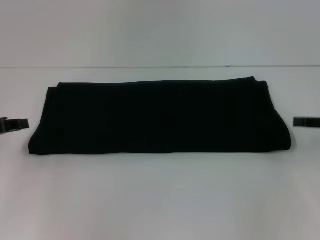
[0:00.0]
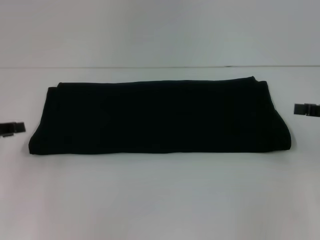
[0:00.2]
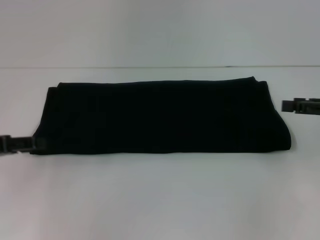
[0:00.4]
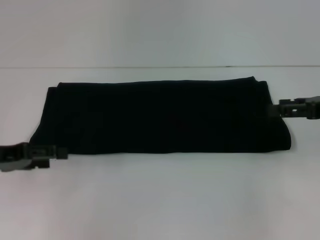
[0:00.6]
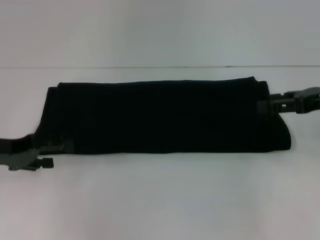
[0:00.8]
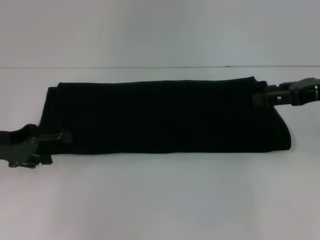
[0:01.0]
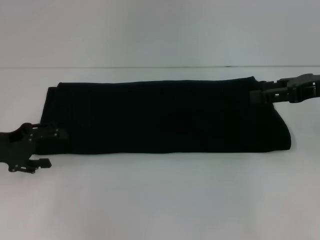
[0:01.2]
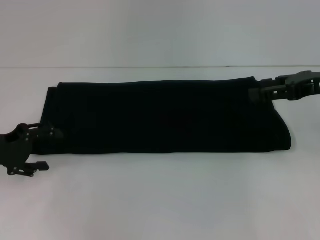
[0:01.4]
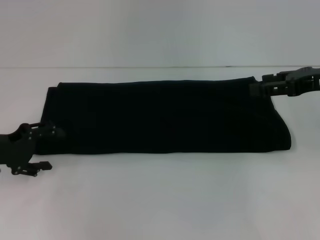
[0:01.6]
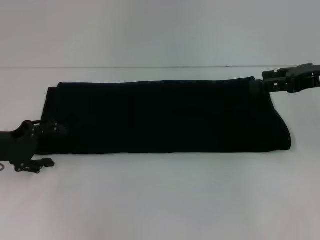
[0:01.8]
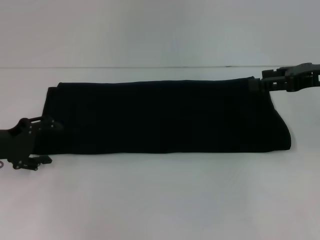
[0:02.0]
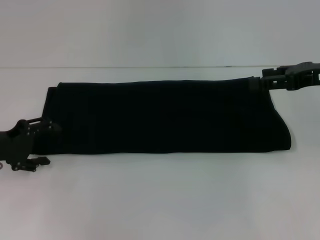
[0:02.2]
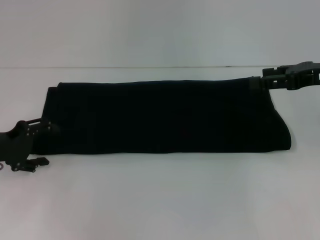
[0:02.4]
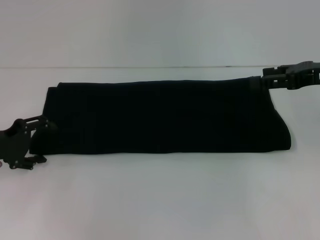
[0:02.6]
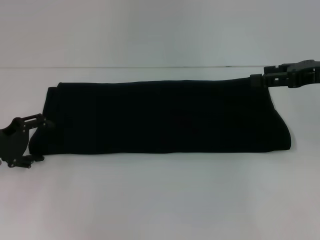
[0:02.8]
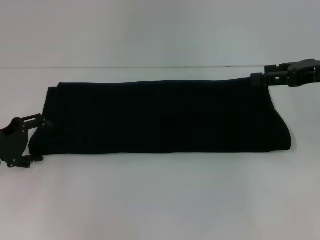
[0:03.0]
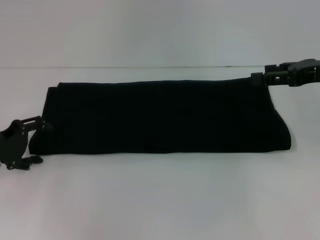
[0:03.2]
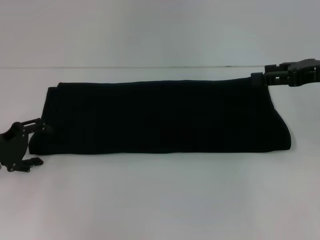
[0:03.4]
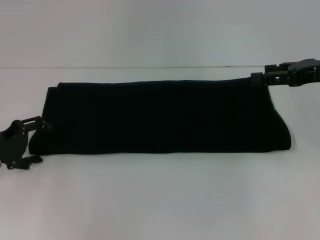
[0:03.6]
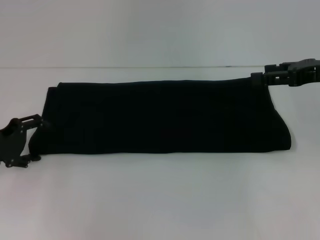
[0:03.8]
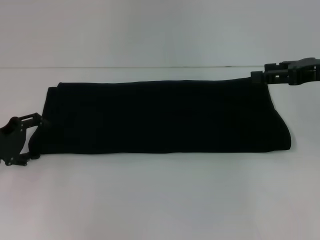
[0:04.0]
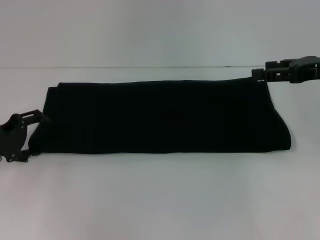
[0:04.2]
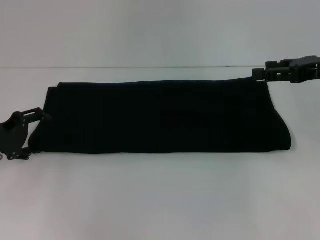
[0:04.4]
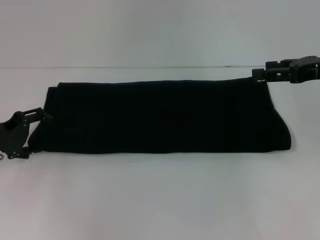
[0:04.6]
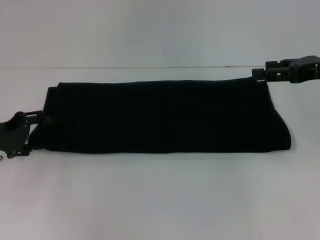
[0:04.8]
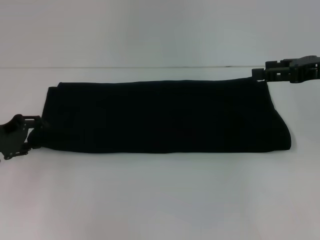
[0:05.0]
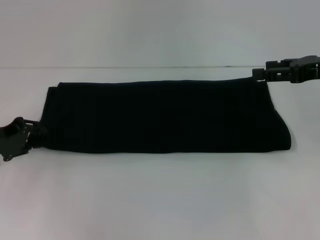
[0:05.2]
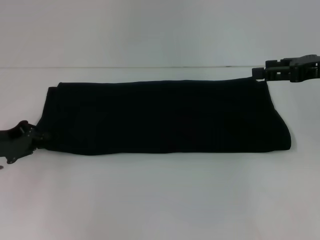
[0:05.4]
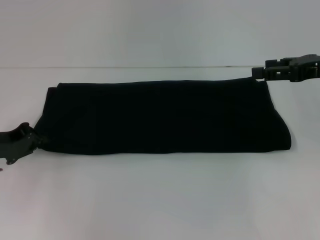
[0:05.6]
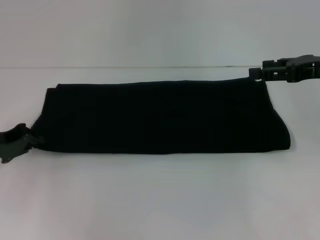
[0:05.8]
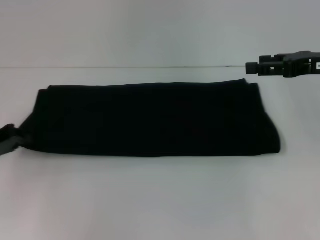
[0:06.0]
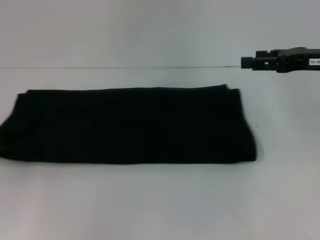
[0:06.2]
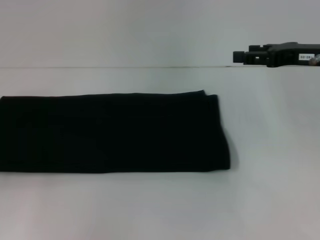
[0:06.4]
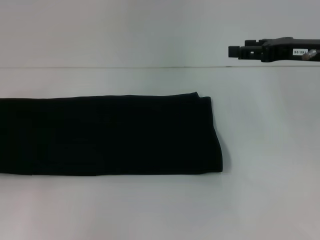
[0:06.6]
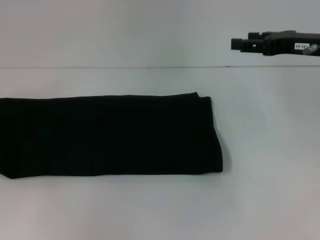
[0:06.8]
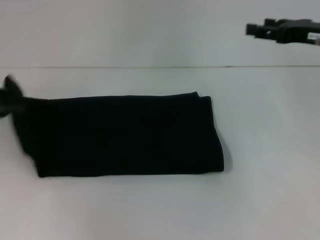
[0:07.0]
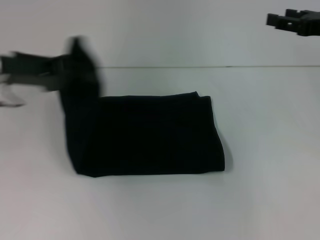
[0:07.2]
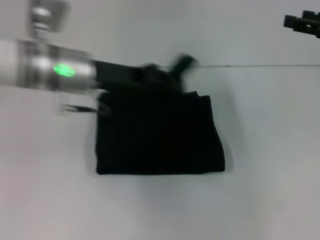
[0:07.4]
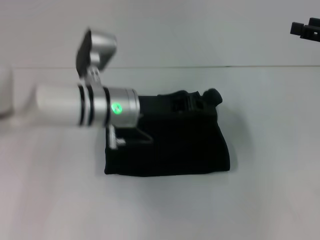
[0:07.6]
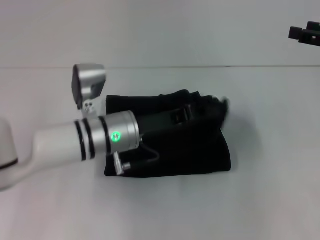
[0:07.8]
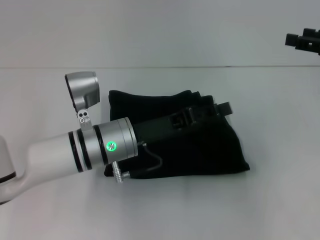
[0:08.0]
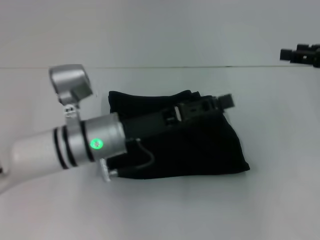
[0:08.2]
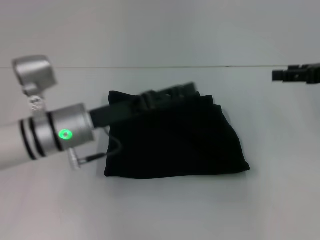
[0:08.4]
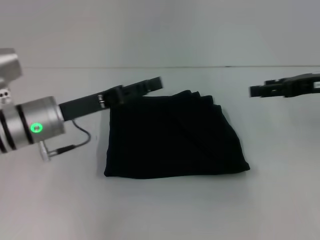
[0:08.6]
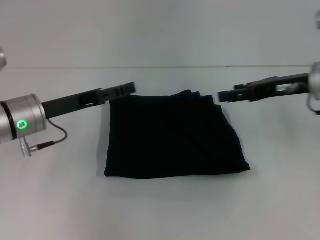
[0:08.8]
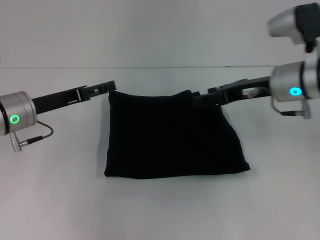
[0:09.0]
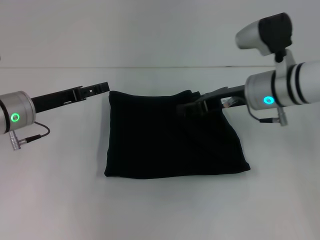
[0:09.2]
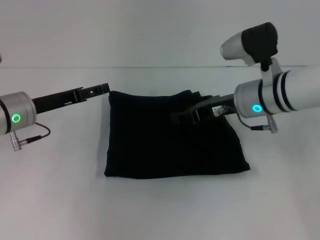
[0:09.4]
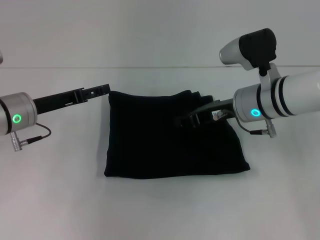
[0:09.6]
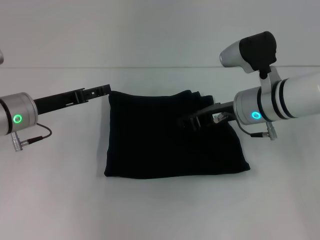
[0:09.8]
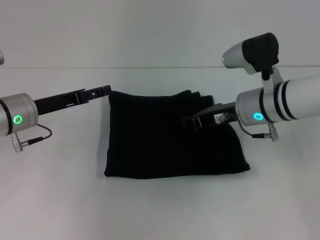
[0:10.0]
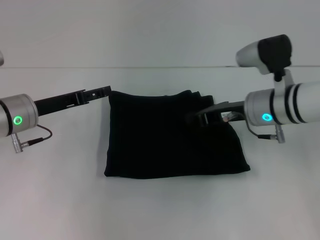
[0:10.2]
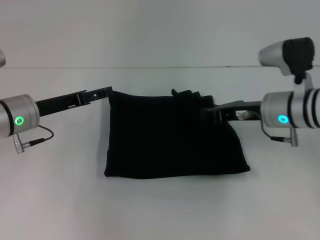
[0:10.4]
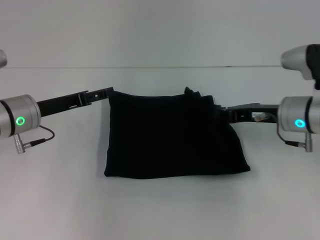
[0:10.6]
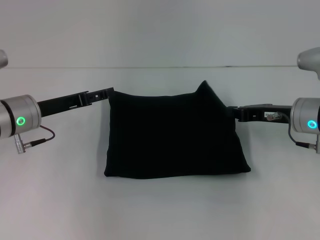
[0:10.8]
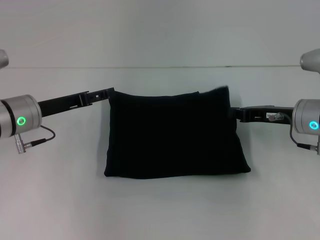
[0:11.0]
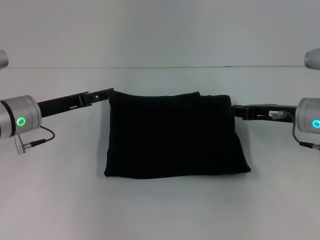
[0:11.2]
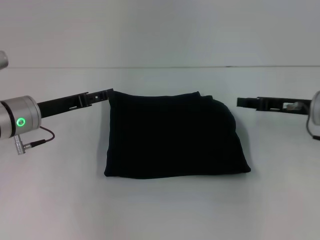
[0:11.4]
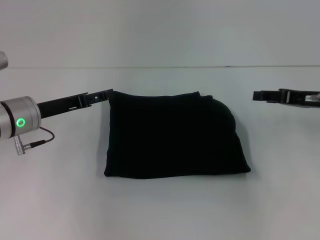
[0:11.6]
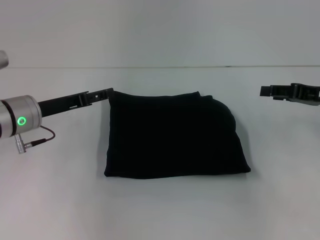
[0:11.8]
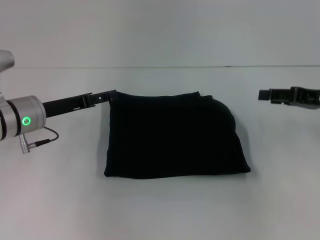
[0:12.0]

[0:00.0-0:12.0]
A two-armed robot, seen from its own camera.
Step, 0:00.0 to 0:08.0: Fold the clothes with your left hand.
0:00.0 to 0:01.6: The right gripper shifts roughly 10 cm upward and to the left, and opens its fingers; the left gripper opens its fingers.
0:01.6 to 0:03.0: The grippers move only a little.
0:03.0 to 0:04.4: Both grippers stay put.
0:04.4 to 0:06.0: The left gripper closes.
0:06.0 to 0:07.6: The left gripper moves to the right, about 25 cm.
0:07.6 to 0:09.0: Both grippers move to the left, approximately 15 cm. The left gripper opens its fingers.
0:09.0 to 0:10.4: The right gripper closes up.
0:10.4 to 0:12.0: The right gripper is displaced to the right by about 15 cm, and opens.

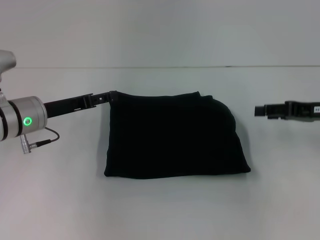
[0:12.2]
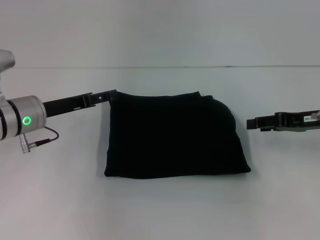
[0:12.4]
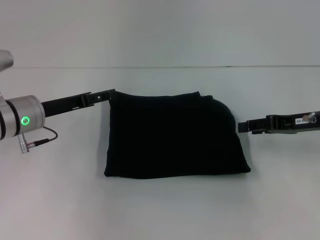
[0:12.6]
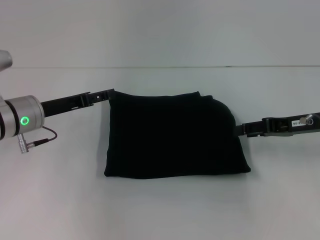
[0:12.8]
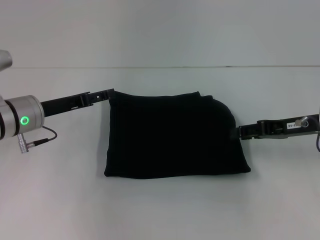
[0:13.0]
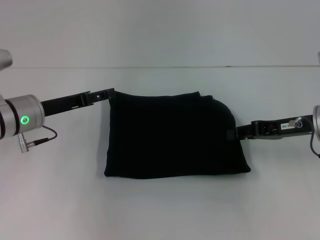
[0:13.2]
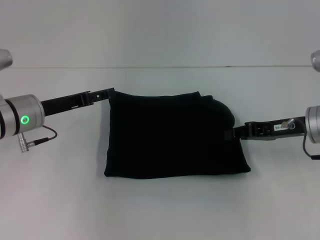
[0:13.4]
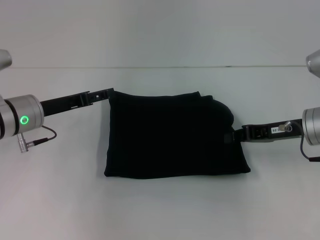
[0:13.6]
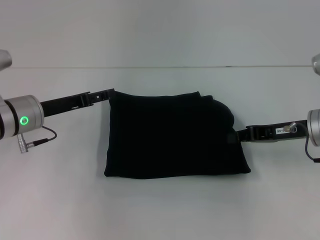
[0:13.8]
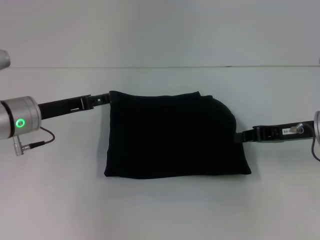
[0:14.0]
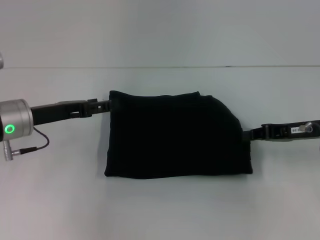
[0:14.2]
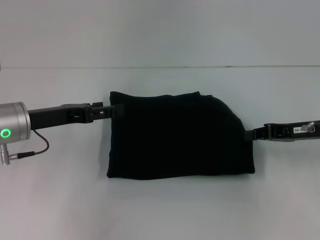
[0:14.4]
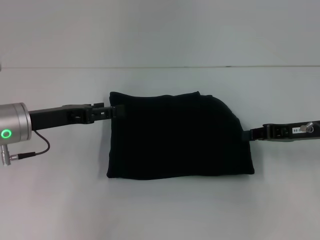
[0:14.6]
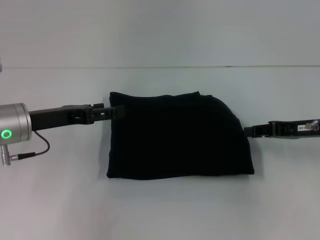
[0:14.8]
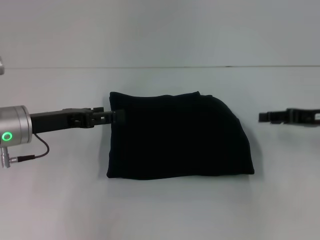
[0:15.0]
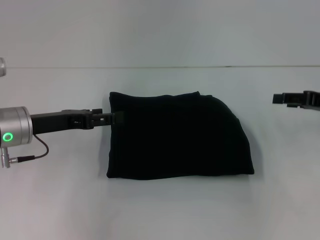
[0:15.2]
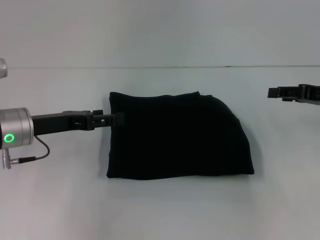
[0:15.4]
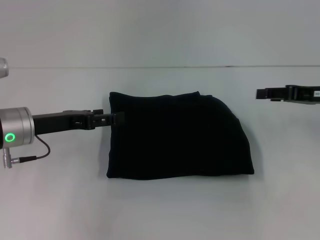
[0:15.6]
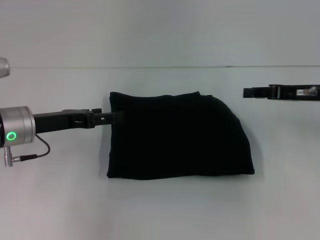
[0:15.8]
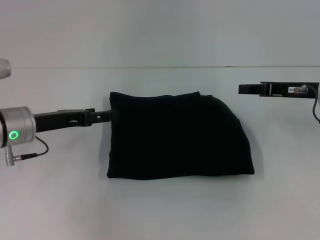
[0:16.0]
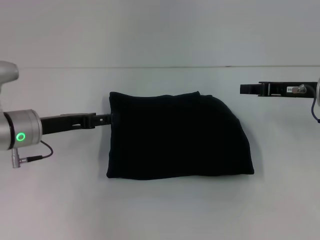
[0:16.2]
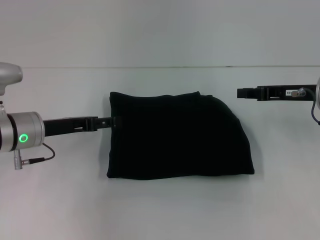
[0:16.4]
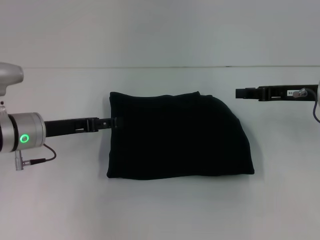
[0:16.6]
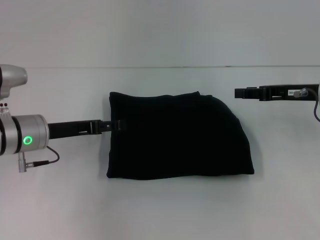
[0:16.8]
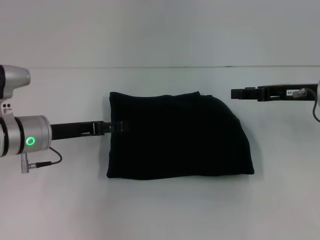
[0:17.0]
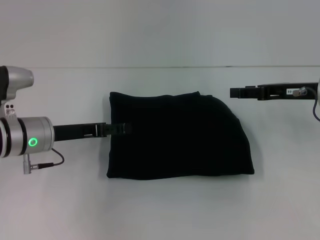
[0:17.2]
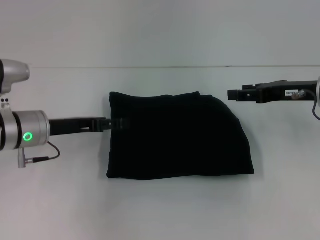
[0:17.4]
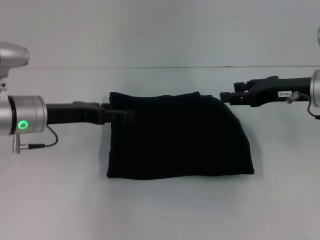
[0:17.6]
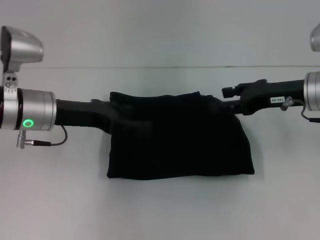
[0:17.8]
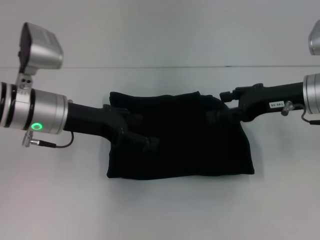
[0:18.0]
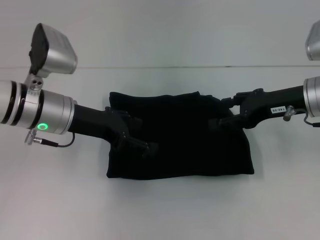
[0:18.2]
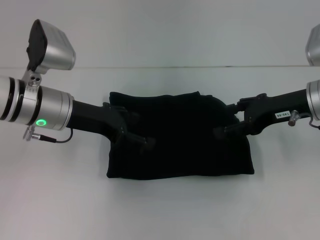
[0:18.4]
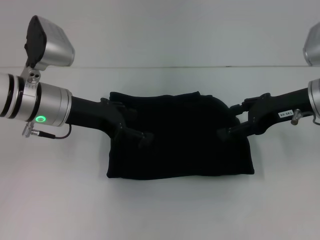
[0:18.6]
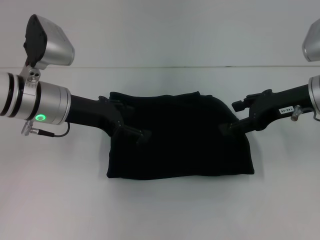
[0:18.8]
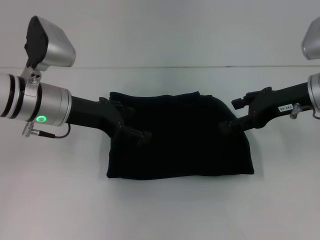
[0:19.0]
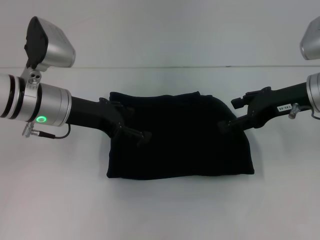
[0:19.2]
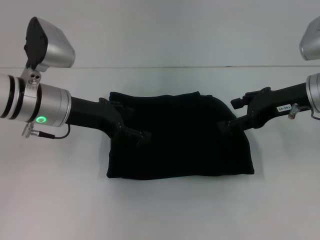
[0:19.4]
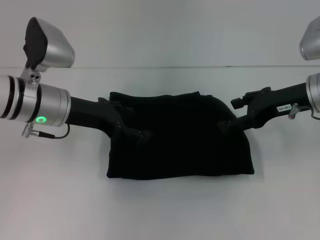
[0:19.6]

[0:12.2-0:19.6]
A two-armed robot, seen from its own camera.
0:12.2 to 0:13.6: The right gripper travels to the left by about 5 cm, and closes.
0:13.6 to 0:15.2: The right gripper travels to the right by some 10 cm.
0:15.2 to 0:16.6: The right gripper shifts approximately 5 cm to the left, and closes up.
0:16.6 to 0:18.2: The left gripper heads upward and to the right, covering about 10 cm, while the right gripper opens its fingers.
0:18.2 to 0:19.6: There are only small adjustments of the grippers.
